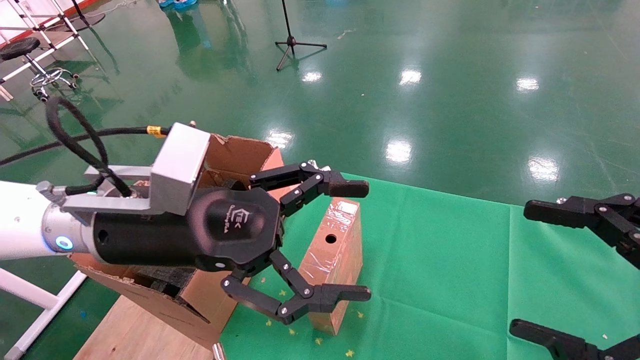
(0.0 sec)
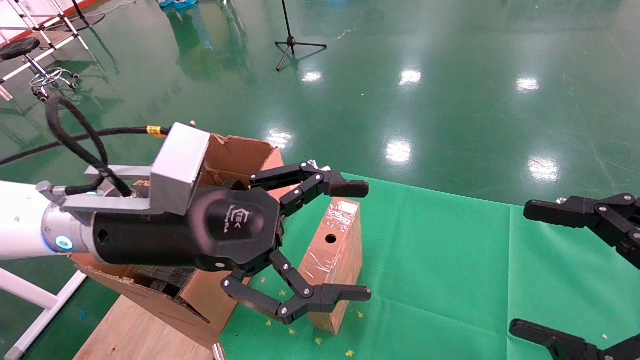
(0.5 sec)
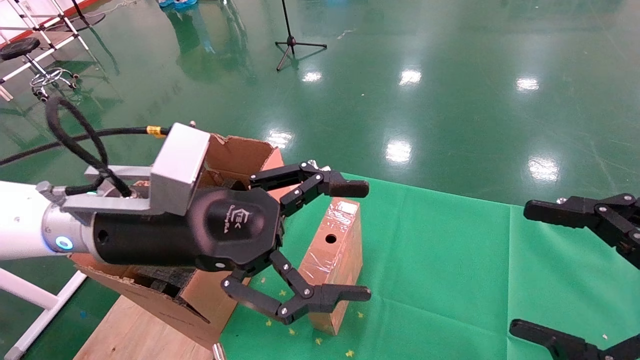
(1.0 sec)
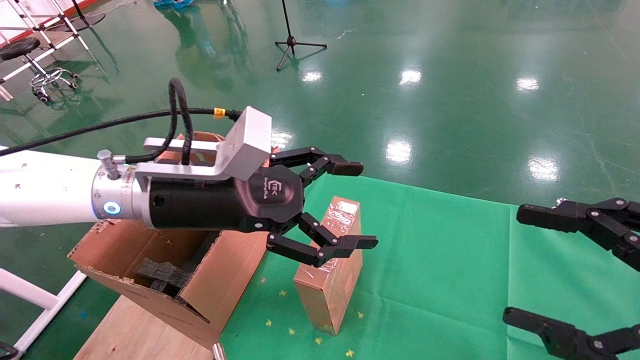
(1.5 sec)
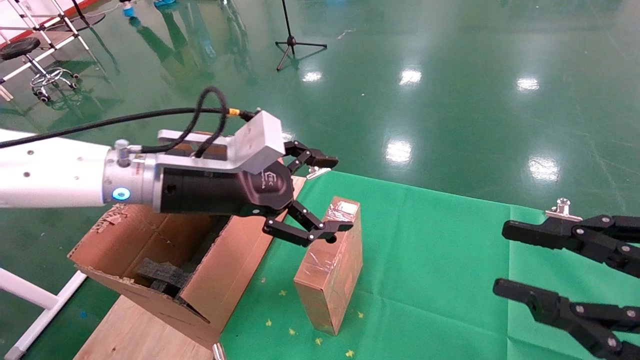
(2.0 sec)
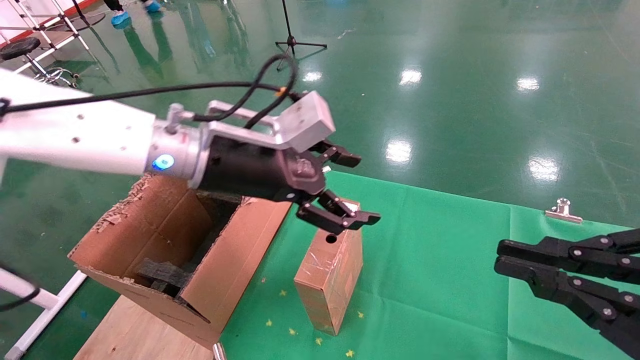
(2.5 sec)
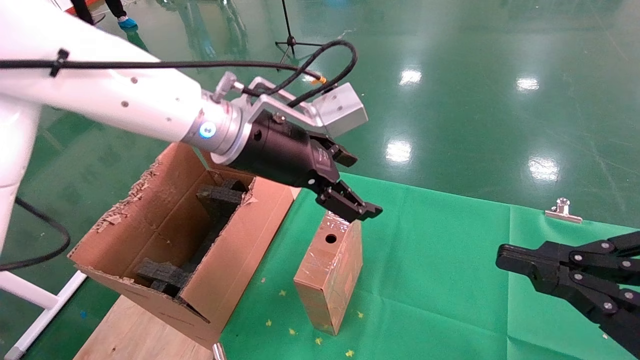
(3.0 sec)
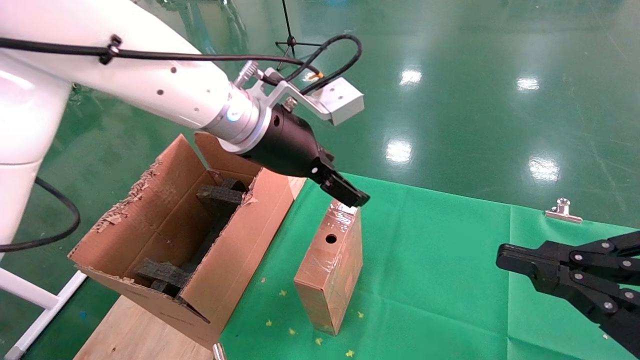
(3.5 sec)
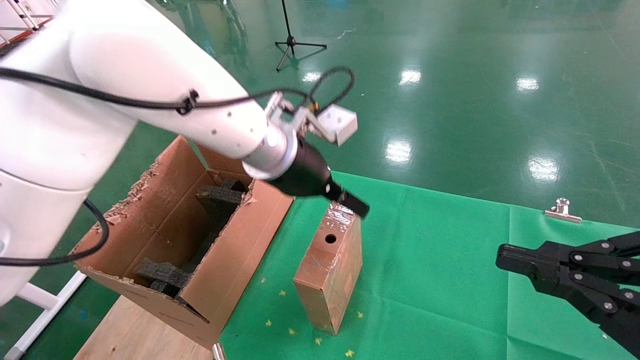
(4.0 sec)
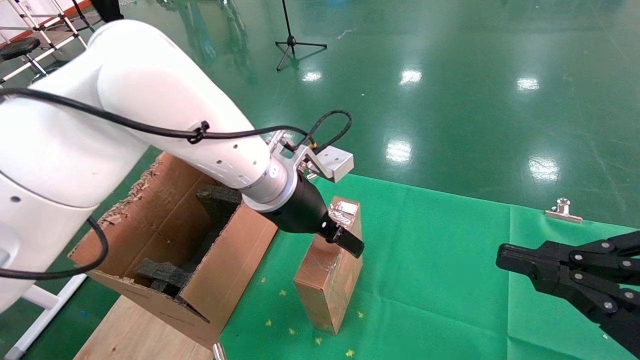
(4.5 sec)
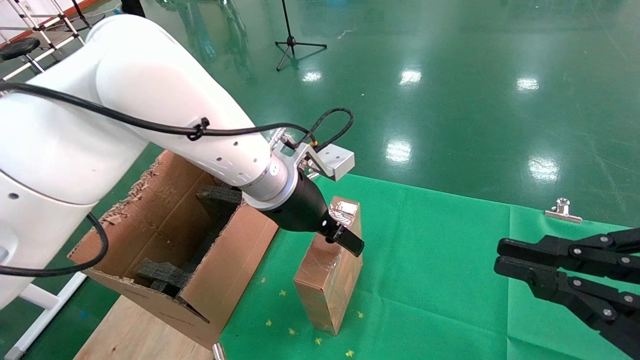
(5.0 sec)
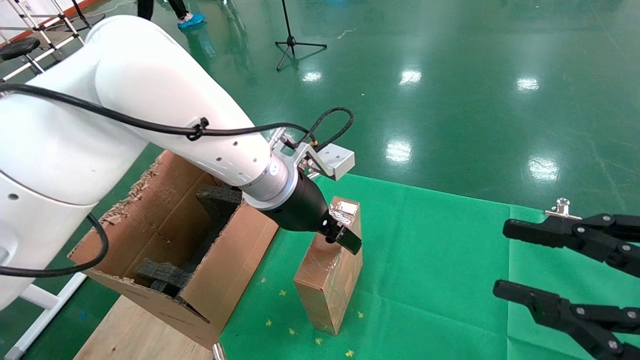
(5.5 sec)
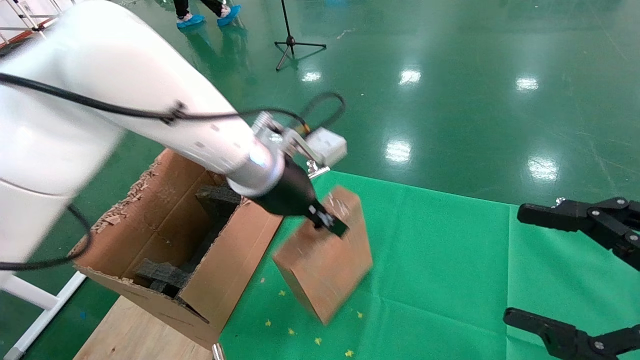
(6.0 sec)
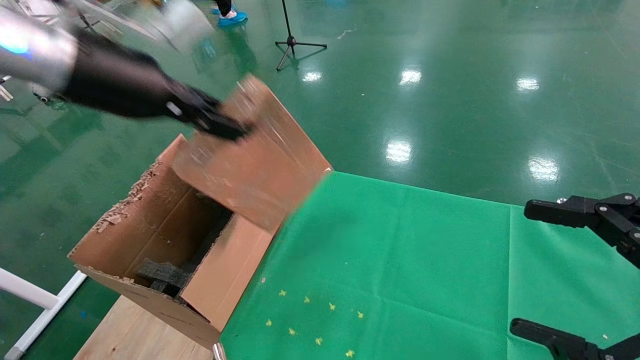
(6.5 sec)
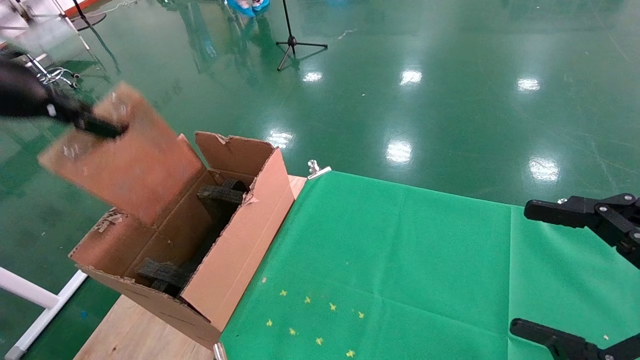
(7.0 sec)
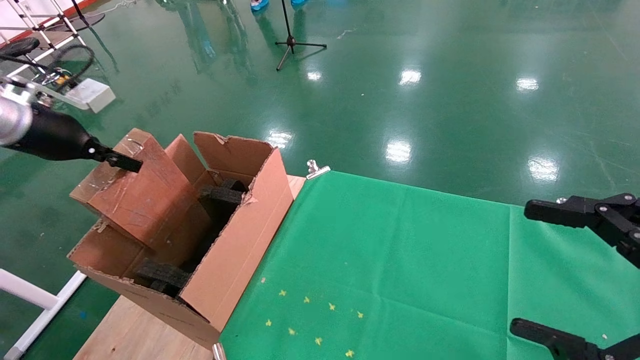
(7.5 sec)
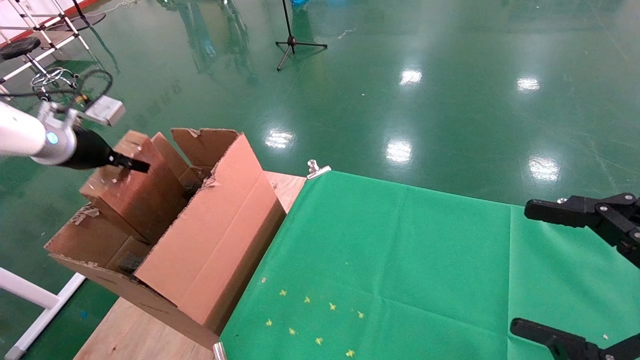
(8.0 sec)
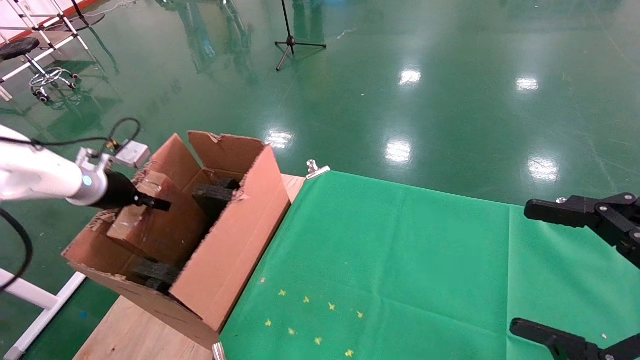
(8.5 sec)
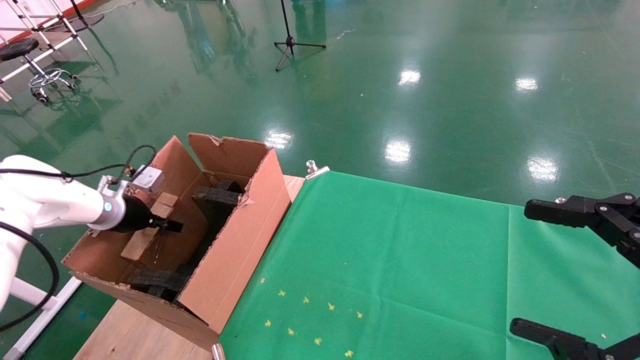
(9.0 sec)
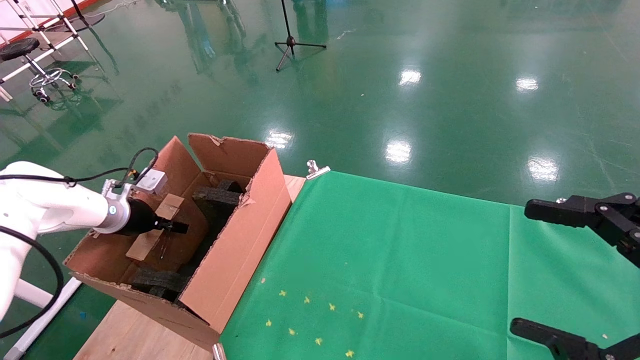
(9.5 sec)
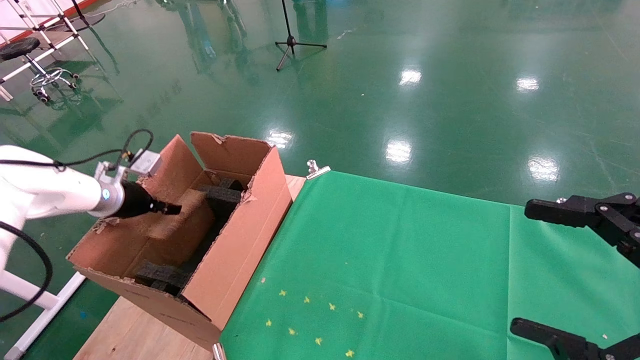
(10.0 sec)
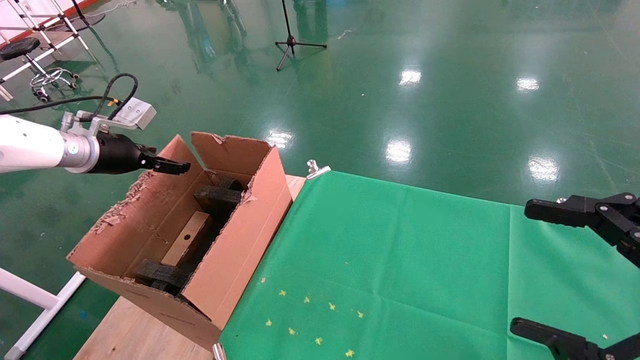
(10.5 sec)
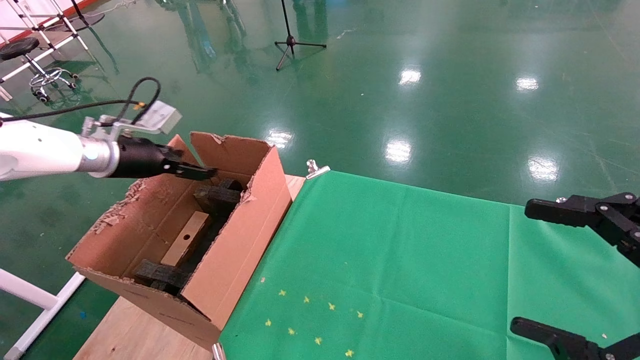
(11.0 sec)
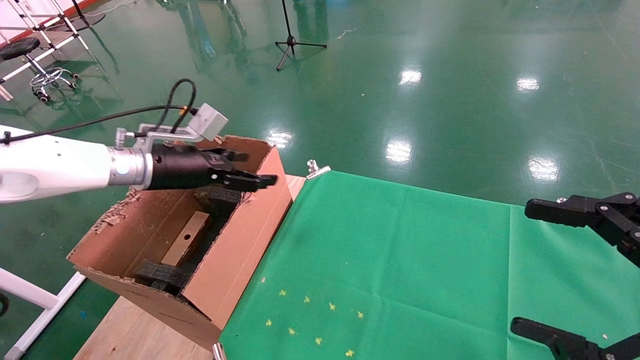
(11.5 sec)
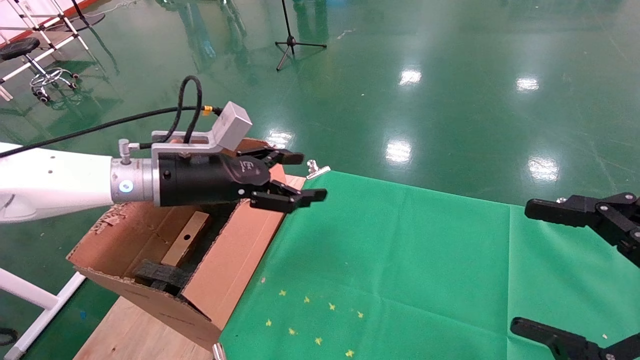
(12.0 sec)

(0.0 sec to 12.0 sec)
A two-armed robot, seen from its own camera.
Task of the whole recording: using a robotic arm to pick up a cardboard box and palace it the carton.
Step, 1.5 sec - 5.5 sec: Pick up the mouse and the power cord paper box.
Step, 6.0 sec - 10.5 sec: Place the mouse and the power cord paper box into the container.
0.0 sec - 2.0 sec: The left gripper goes roughly 5 cm forward, while the right gripper closes its fingers.
2.0 sec - 4.0 sec: The right gripper closes. Meanwhile the left gripper goes some 10 cm to the right and forward.
4.0 sec - 6.0 sec: The right gripper opens up. Meanwhile the left gripper closes its fingers.
6.0 sec - 8.0 sec: The left gripper is displaced to the left by about 35 cm.
8.0 sec - 10.0 sec: The left gripper moves downward, approximately 10 cm.
10.0 sec - 12.0 sec: The left gripper moves to the right, approximately 20 cm, and opens.

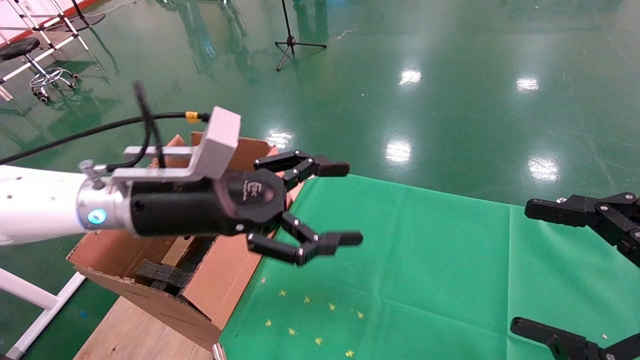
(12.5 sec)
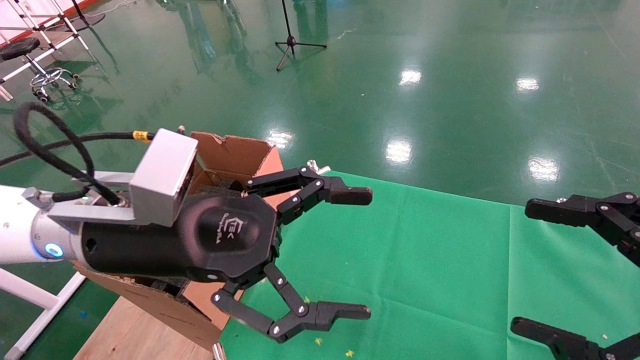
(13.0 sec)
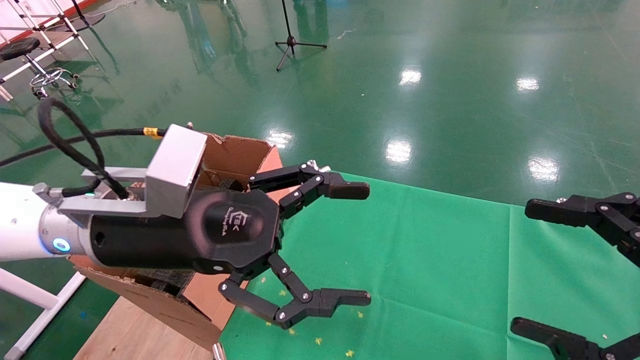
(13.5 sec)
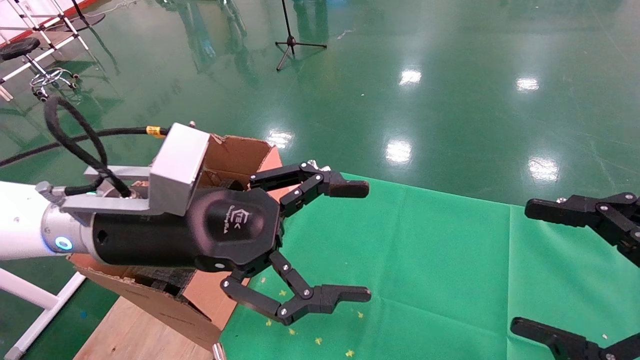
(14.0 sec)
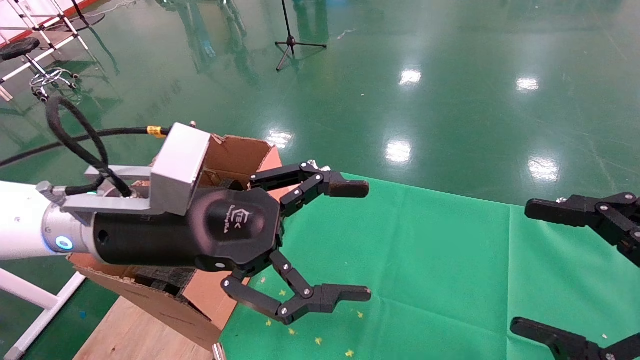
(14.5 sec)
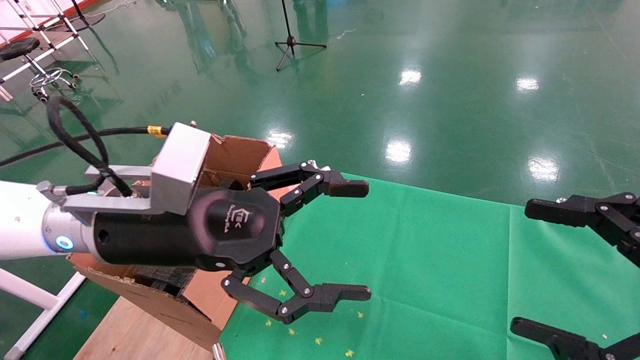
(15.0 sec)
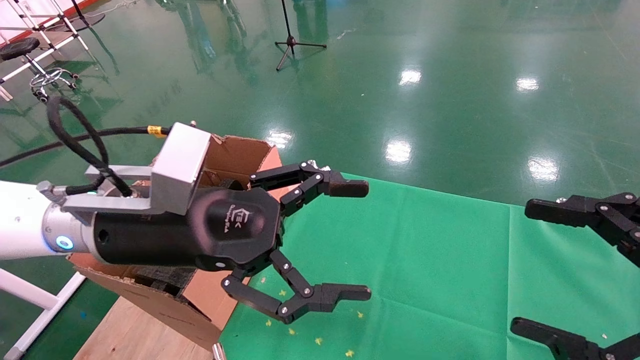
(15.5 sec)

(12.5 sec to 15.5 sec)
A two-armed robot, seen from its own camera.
Task of the whole recording: using a robotic arm to pick up a cardboard box and palace it the carton.
12.5 sec - 14.0 sec: The grippers move only a little.
14.0 sec - 15.5 sec: Neither gripper changes place.
